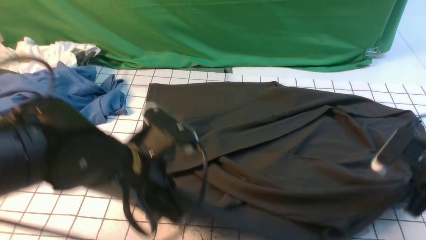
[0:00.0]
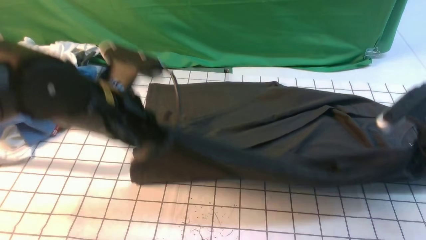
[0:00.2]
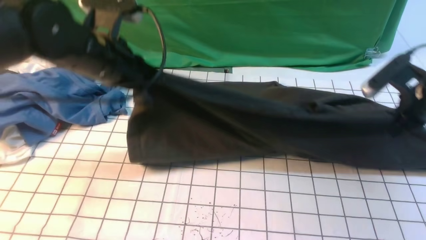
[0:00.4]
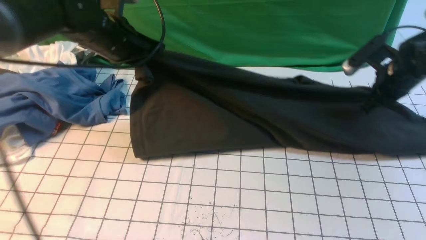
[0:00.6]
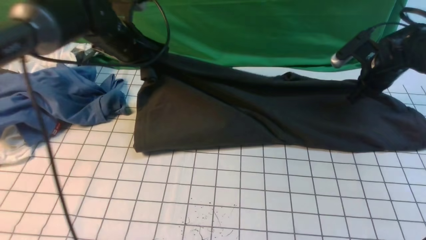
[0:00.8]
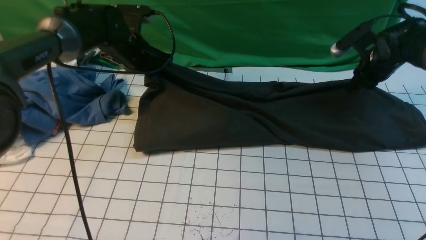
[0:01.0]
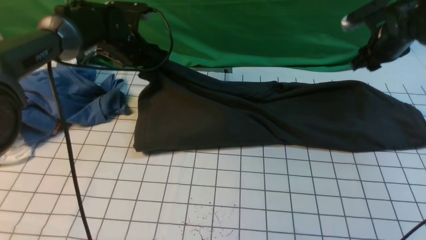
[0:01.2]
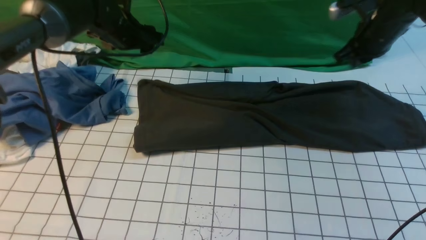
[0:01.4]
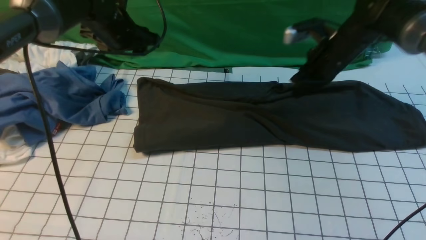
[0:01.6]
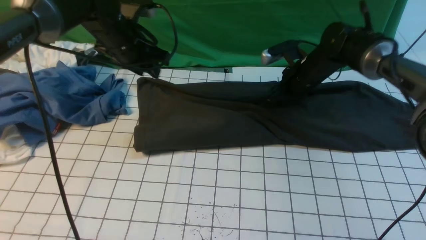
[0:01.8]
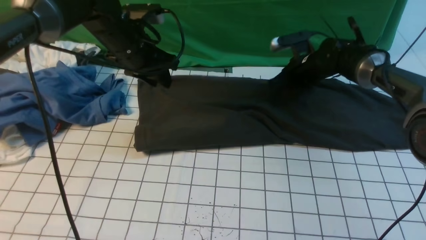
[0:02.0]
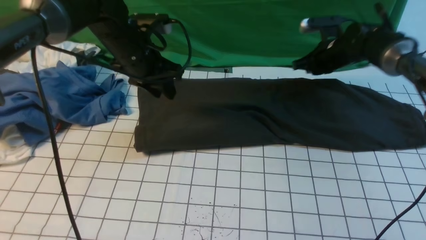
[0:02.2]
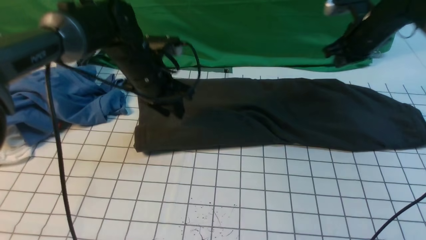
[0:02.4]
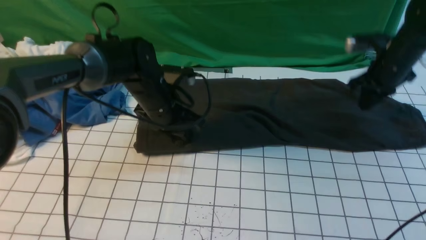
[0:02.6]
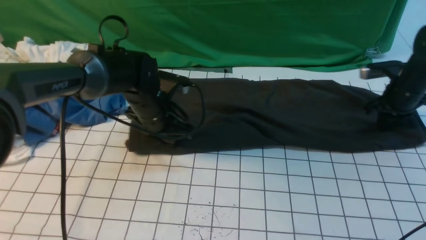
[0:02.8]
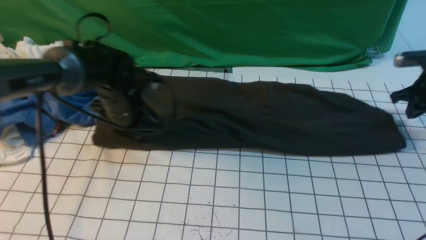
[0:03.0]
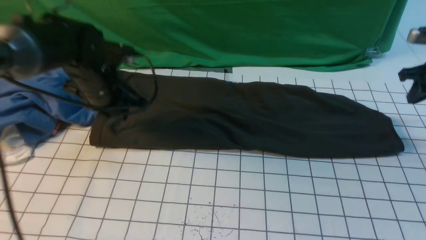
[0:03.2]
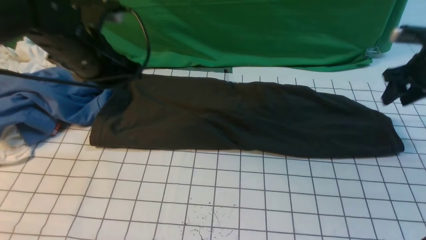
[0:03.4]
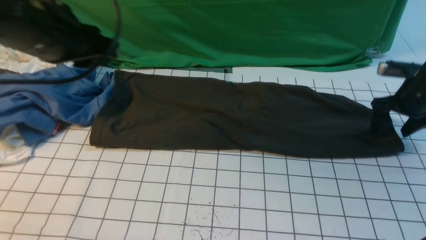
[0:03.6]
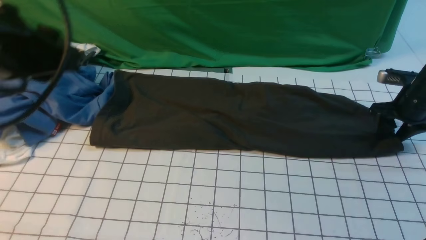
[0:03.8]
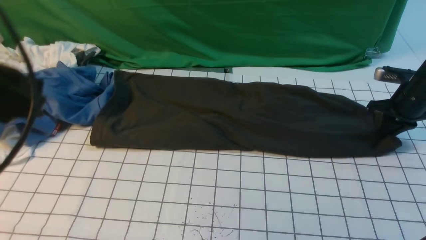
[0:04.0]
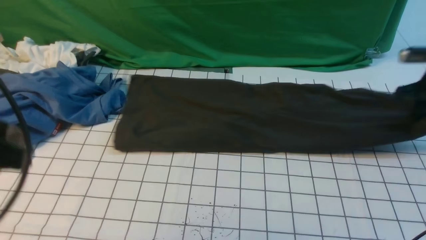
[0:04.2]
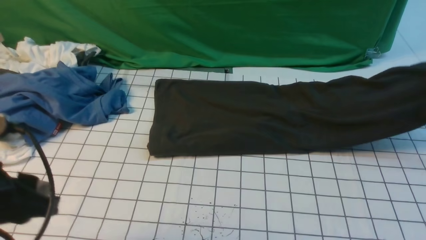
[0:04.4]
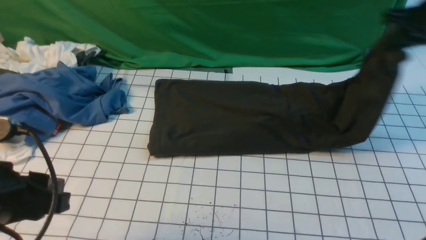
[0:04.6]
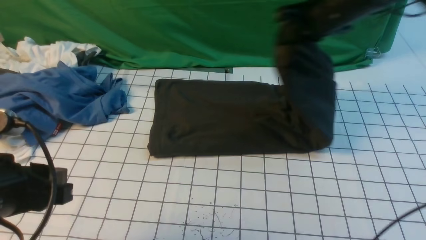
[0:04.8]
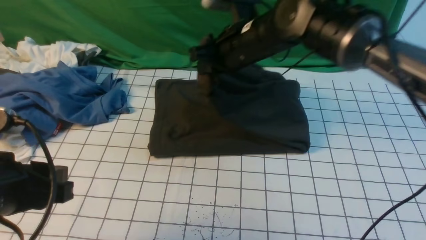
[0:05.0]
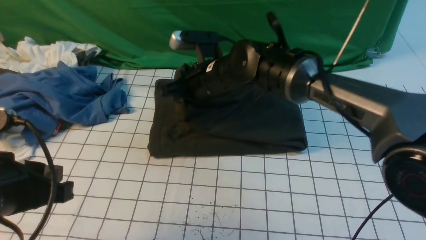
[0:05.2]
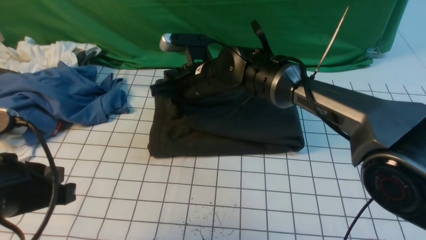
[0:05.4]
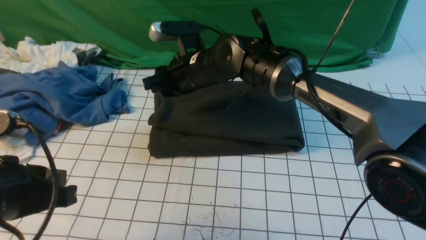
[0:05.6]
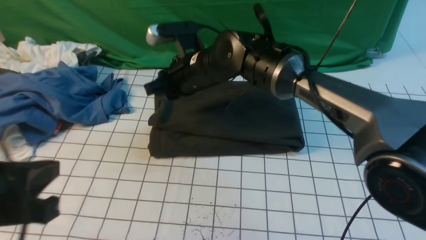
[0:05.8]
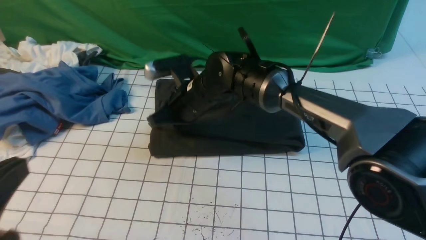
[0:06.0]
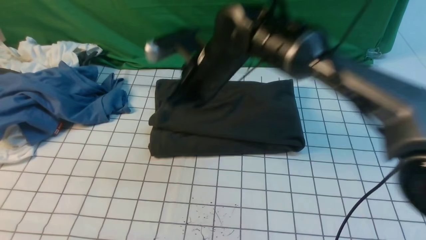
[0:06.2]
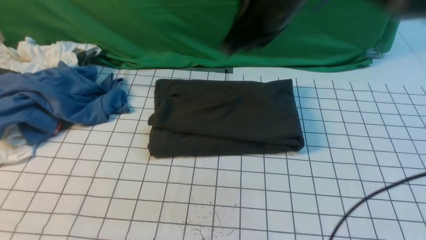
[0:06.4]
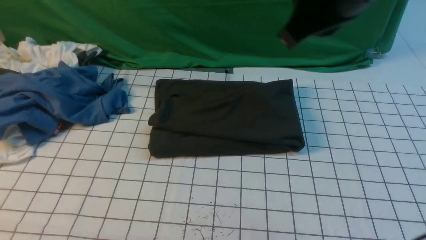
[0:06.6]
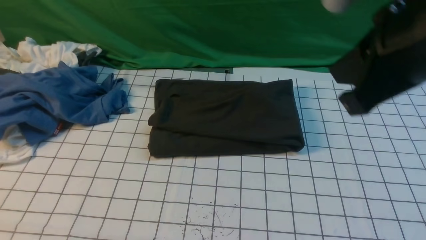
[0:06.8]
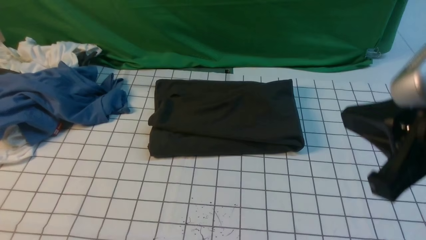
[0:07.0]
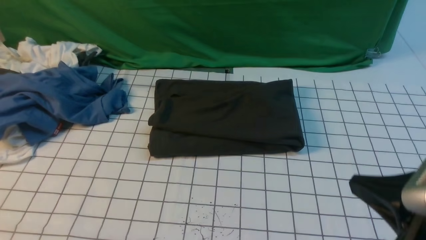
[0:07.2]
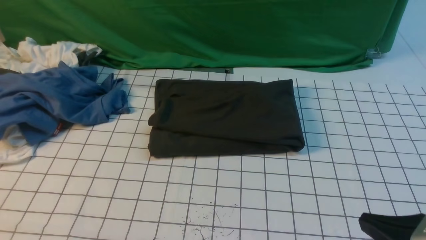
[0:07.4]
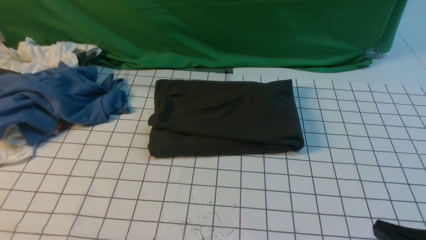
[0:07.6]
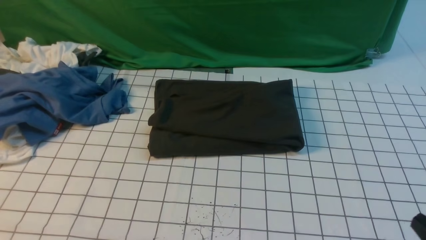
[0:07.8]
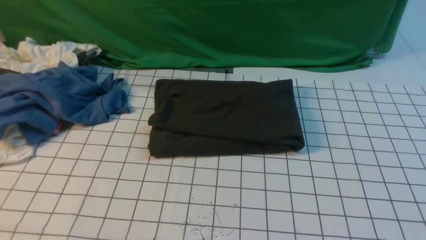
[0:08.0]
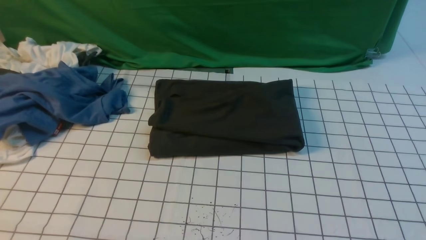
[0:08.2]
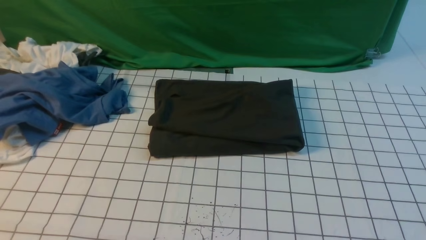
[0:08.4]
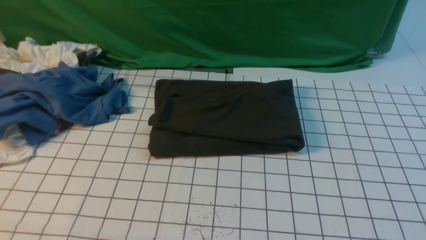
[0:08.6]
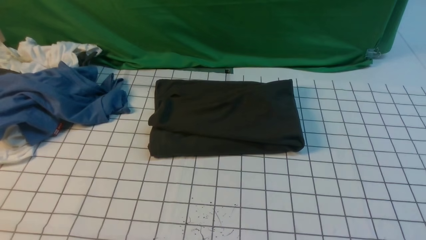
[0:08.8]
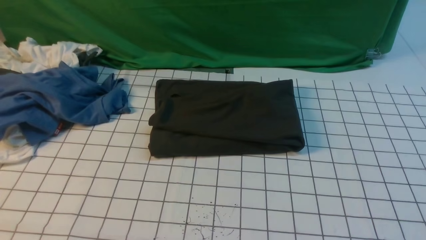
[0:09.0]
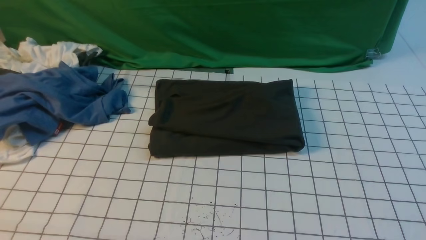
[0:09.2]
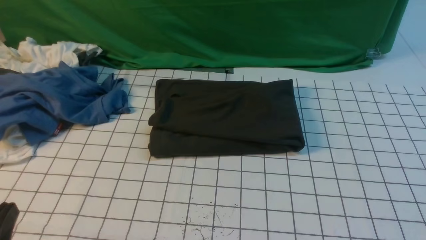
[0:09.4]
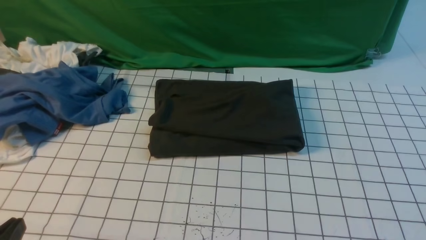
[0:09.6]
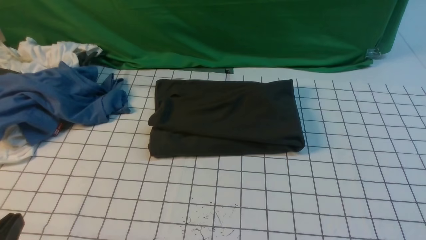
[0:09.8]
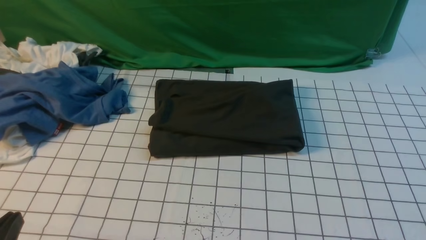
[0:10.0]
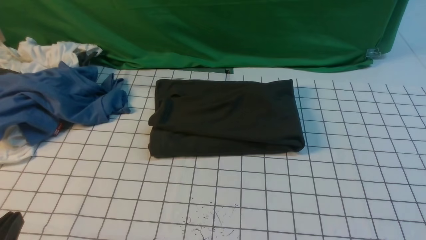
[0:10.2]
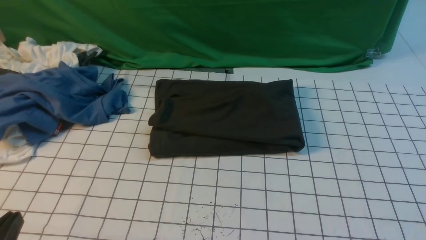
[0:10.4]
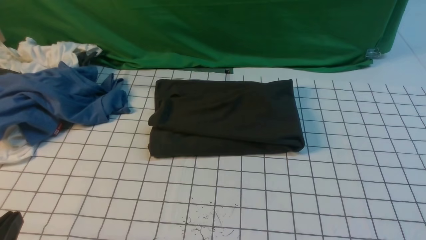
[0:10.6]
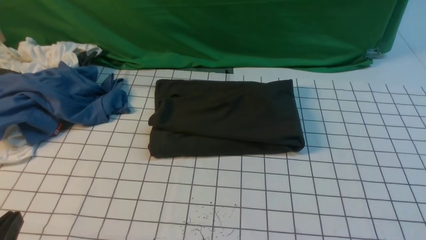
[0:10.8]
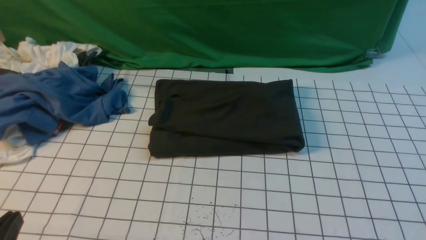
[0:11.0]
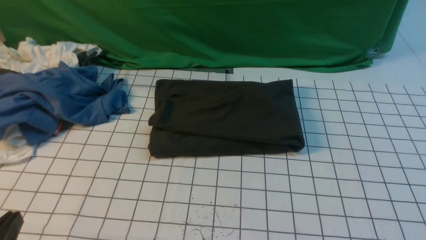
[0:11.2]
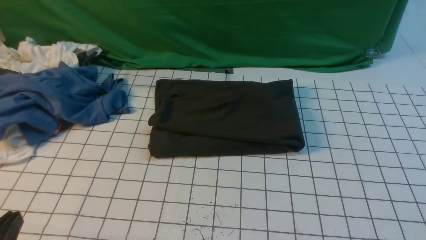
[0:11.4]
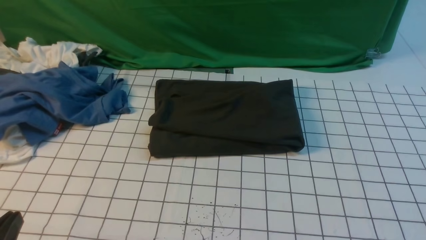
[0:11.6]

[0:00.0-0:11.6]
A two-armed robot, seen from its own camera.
Step, 0:00.0 to 0:02.4: use both arms to drag the lower edge of the fabric forward and fold it over the upper edge.
Step, 0:02.6 to 0:04.2: use the right arm to clamp the right edge of the fabric.
Step, 0:04.4 to 0:05.4: use the right arm to drag the right edge of the fabric to the left and folds it over the left edge.
0:00.0 to 0:01.4: The grippers both shift forward by about 25 cm. The left gripper opens up.
0:01.4 to 0:02.8: The left gripper shifts some 10 cm downward and backward, and closes its fingers, while the right gripper heads to the right and downward, covering roughly 15 cm.
0:02.8 to 0:04.4: The right gripper moves up and down over about 15 cm, changing direction 2 times, and opens, then closes again; the left gripper moves backward and upward, roughly 30 cm.
0:04.4 to 0:05.8: The left gripper closes its fingers. Meanwhile the right gripper shifts roughly 40 cm to the left.
0:05.8 to 0:07.2: The right gripper shifts approximately 40 cm backward and to the right, and closes up, while the left gripper travels backward by about 10 cm.
0:07.2 to 0:08.8: The right gripper heads downward, to the right and backward, covering about 15 cm.
0:10.2 to 0:11.6: The two grippers keep their place.
